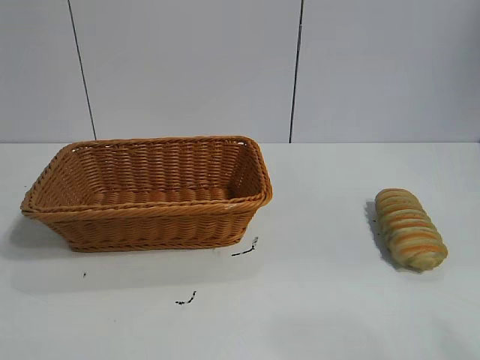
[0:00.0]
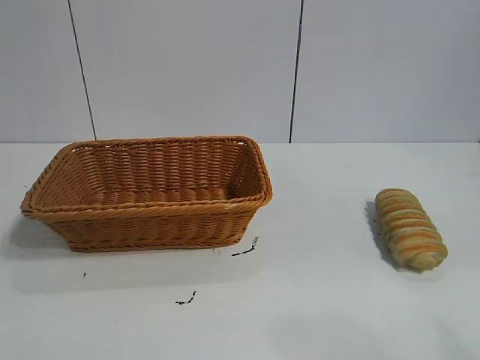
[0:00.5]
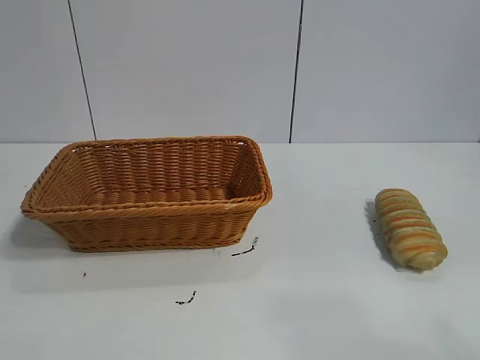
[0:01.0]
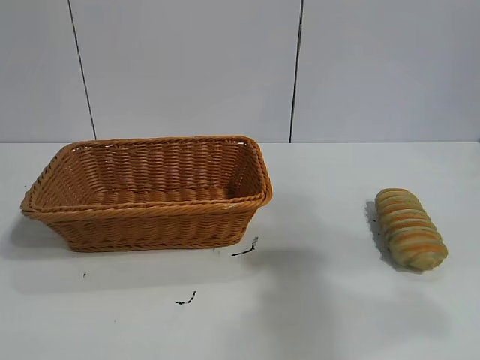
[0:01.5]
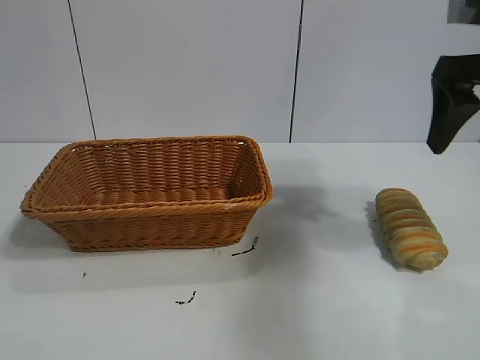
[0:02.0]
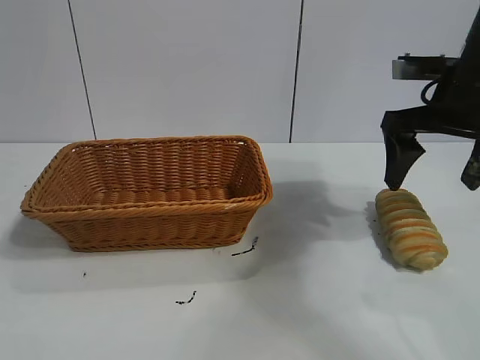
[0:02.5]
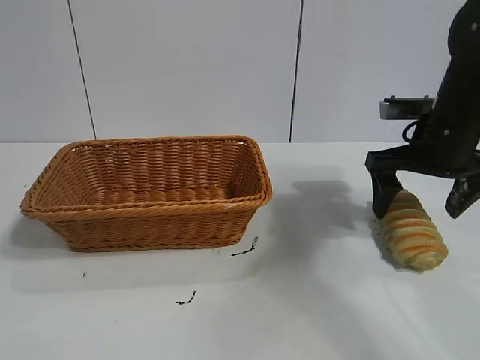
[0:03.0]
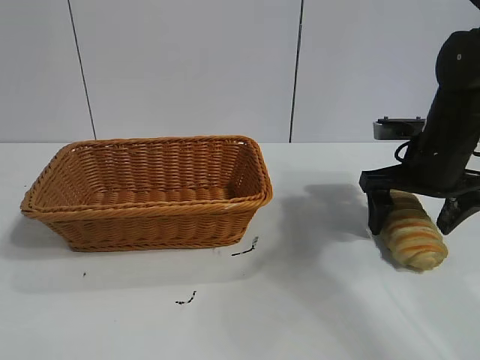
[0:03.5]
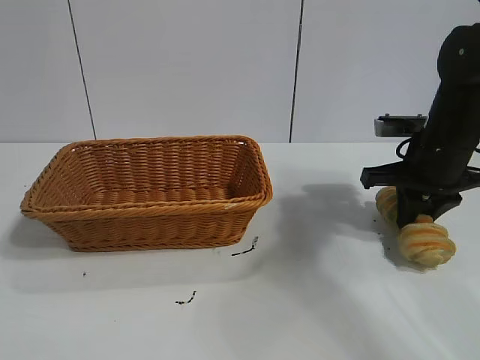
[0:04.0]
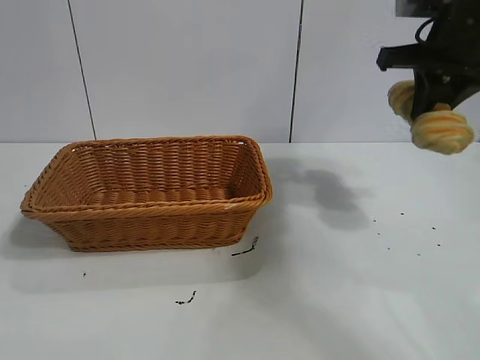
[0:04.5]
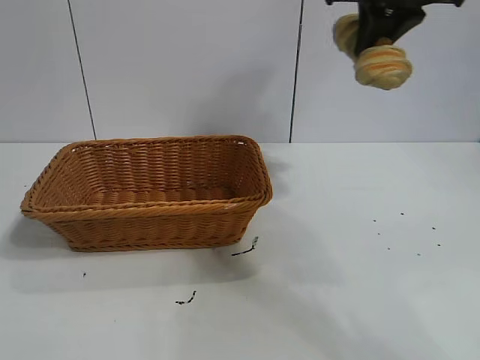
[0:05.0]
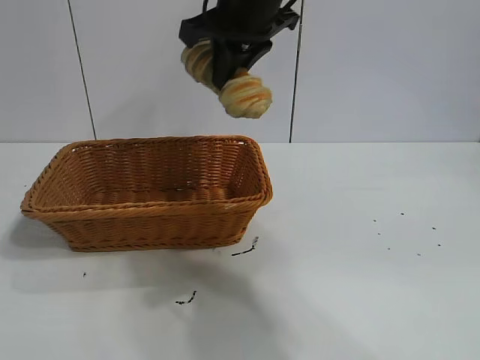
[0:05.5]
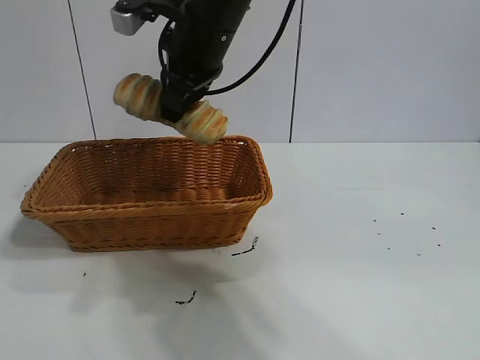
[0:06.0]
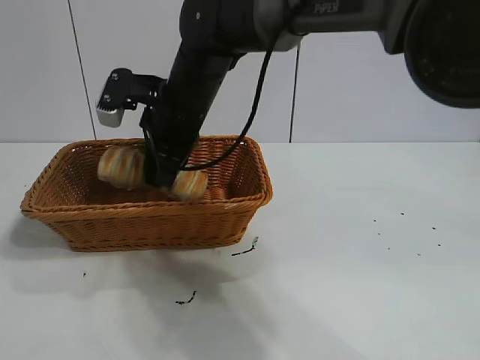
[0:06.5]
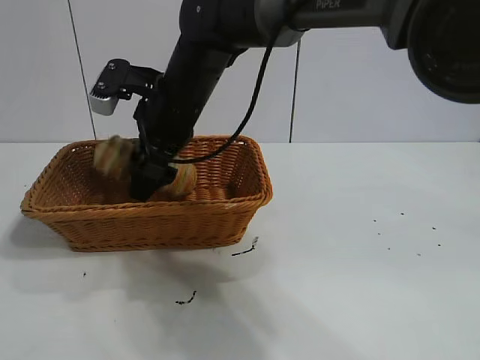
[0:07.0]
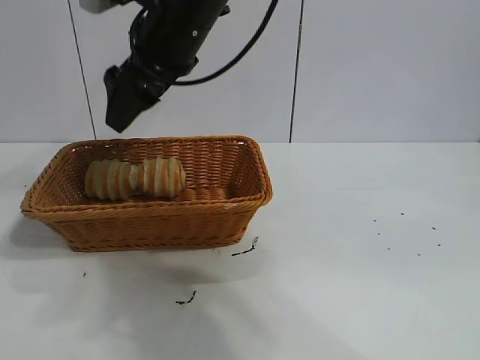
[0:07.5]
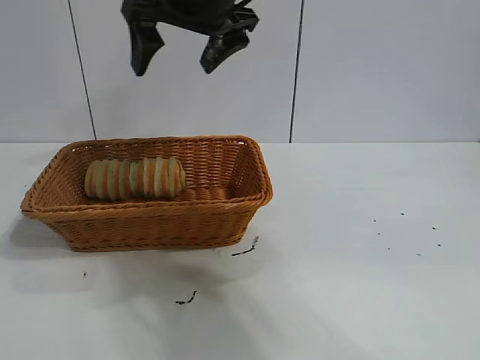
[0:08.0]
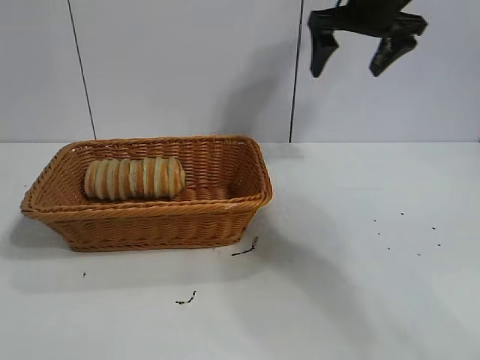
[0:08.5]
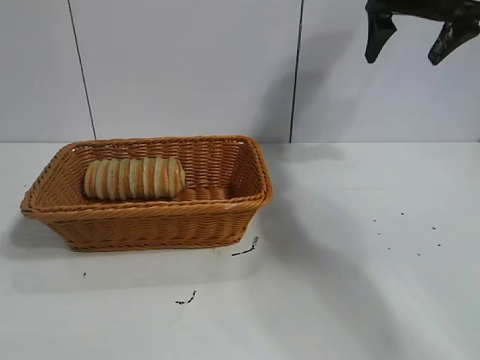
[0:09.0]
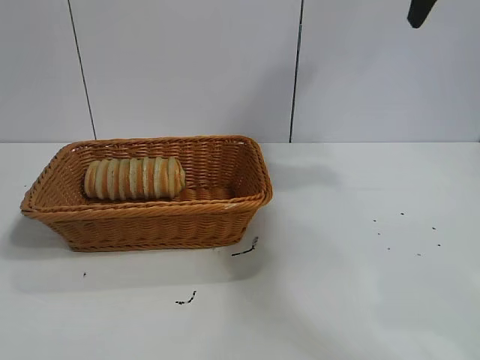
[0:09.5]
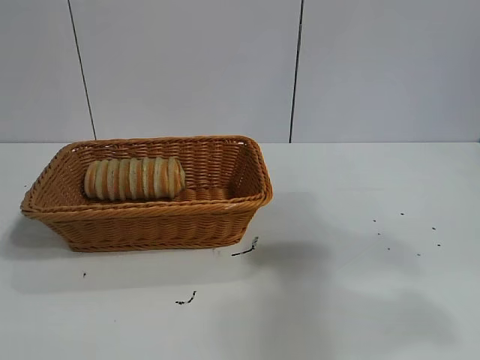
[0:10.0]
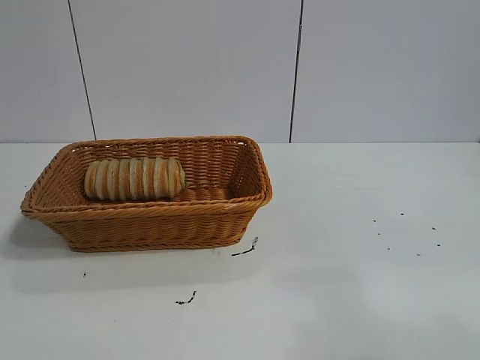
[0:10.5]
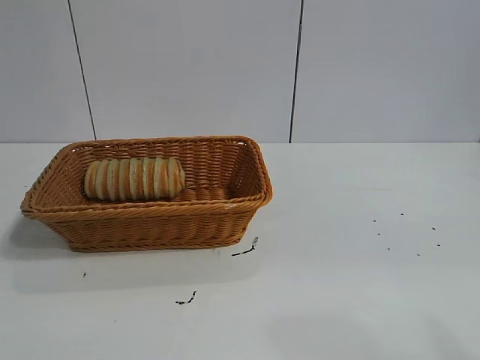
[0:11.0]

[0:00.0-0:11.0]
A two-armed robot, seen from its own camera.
Task of the whole recording: pick up the long bread and put it into the basket.
Step, 0:02.0 to 0:03.5: Grasp the long bread with right gripper.
Step, 0:04.5 to 0:07.5: Place the long bread in the basket with right gripper.
